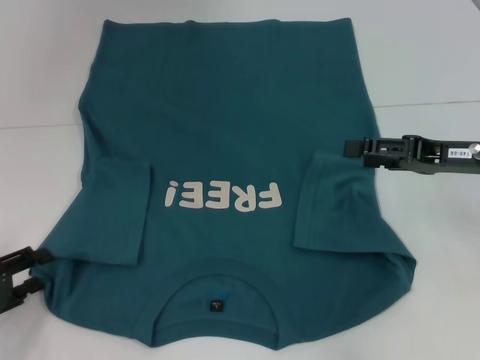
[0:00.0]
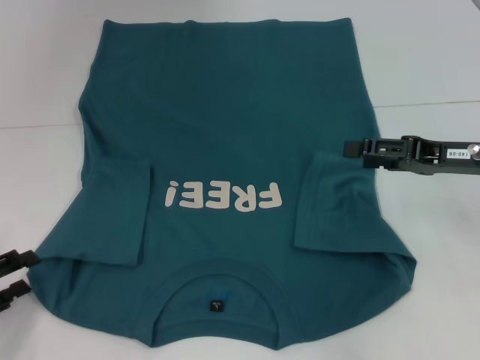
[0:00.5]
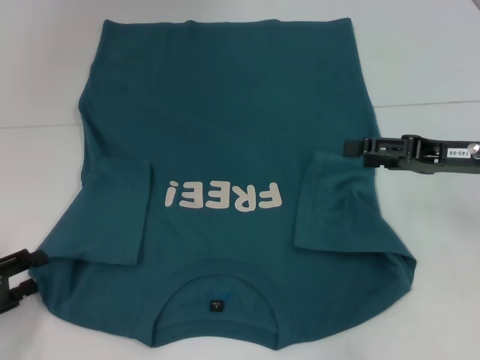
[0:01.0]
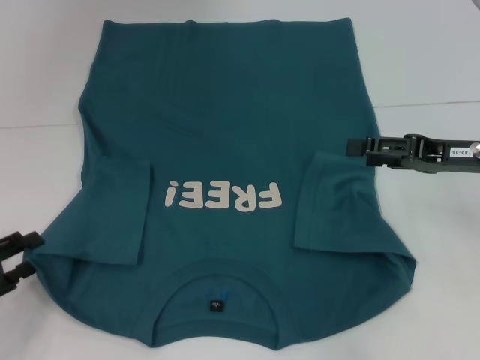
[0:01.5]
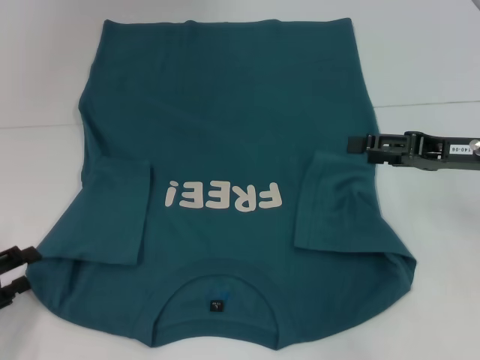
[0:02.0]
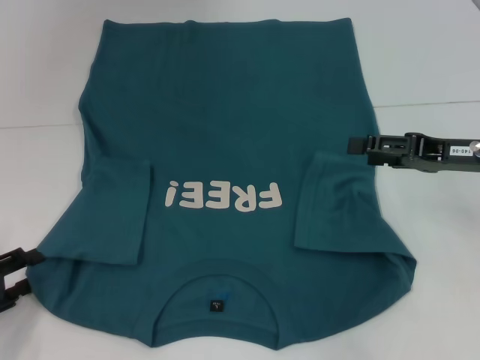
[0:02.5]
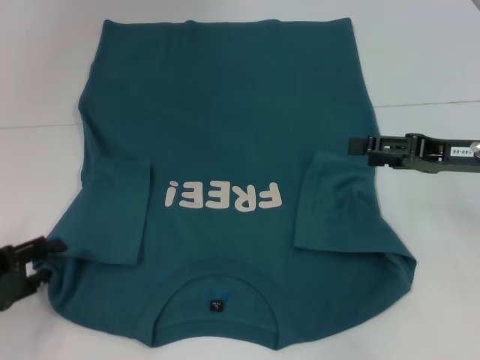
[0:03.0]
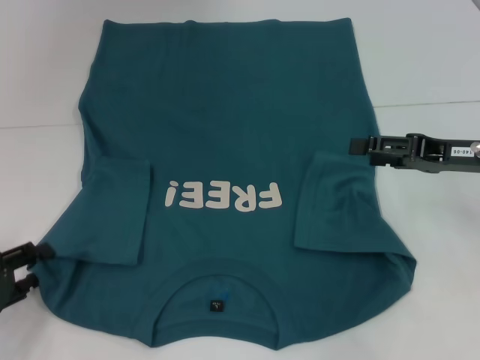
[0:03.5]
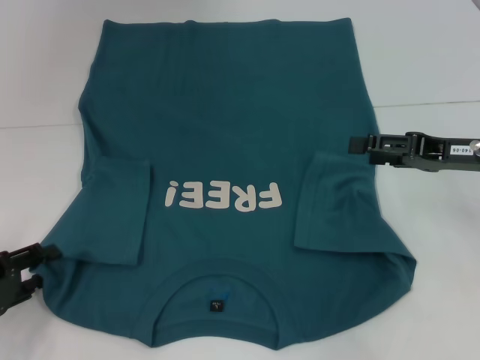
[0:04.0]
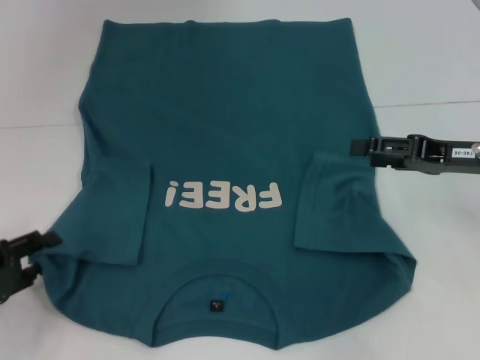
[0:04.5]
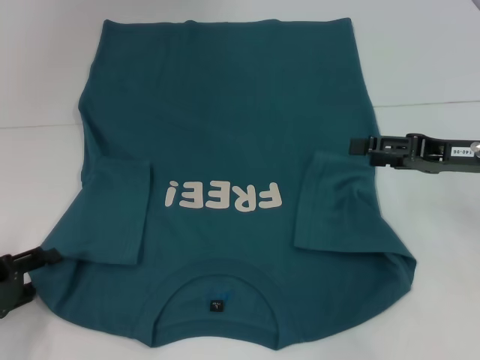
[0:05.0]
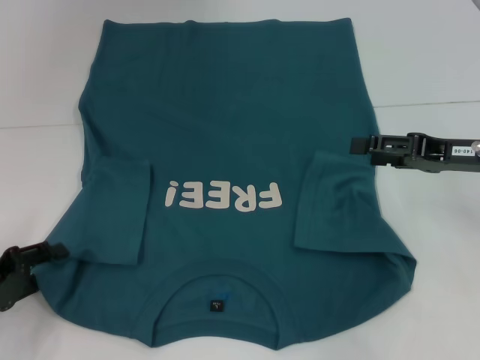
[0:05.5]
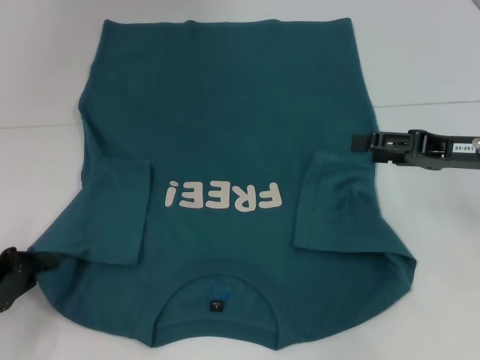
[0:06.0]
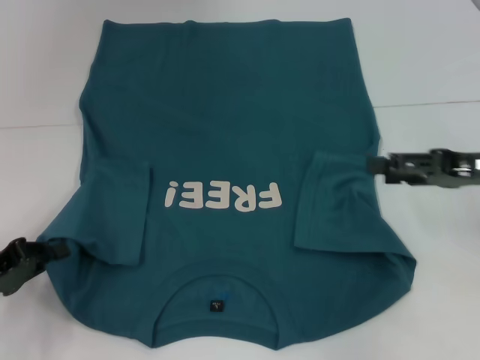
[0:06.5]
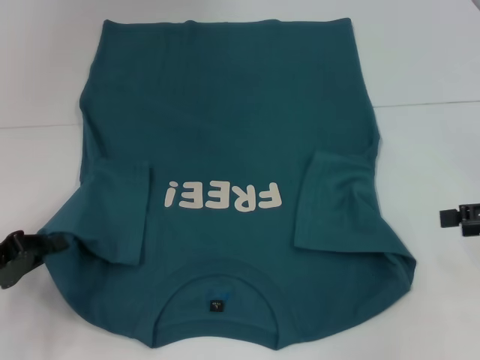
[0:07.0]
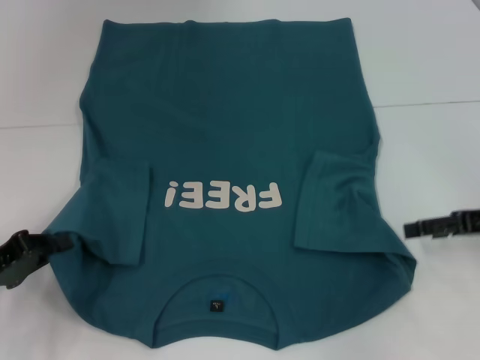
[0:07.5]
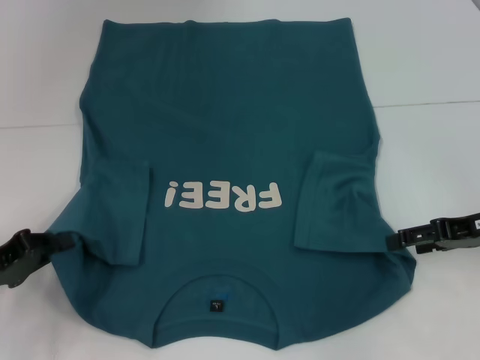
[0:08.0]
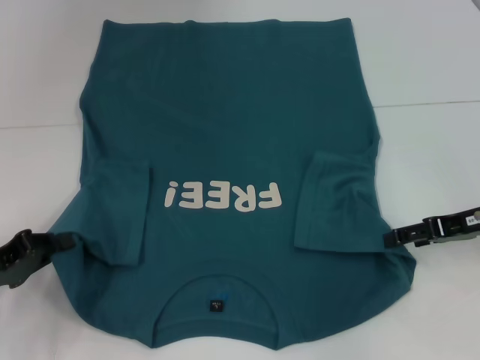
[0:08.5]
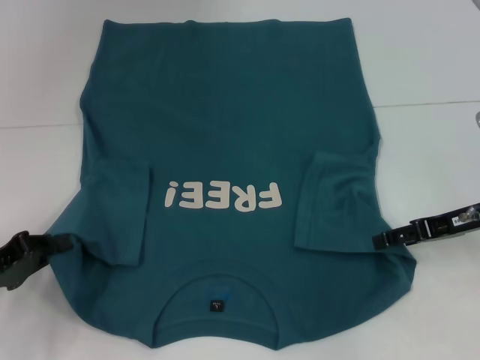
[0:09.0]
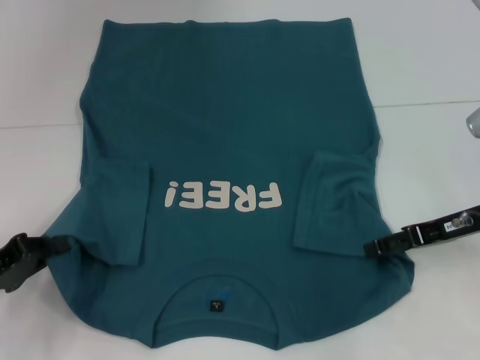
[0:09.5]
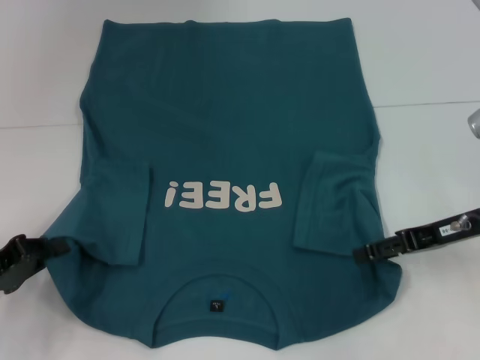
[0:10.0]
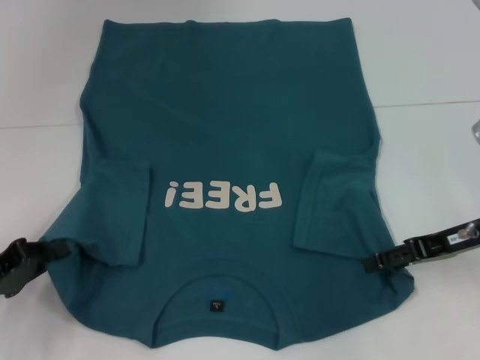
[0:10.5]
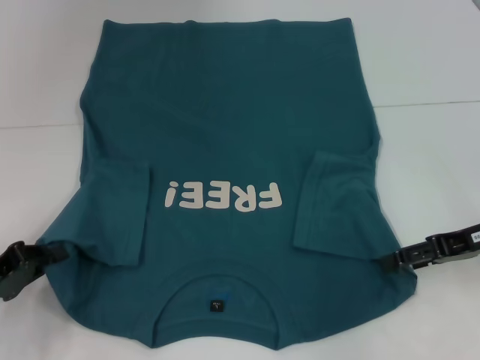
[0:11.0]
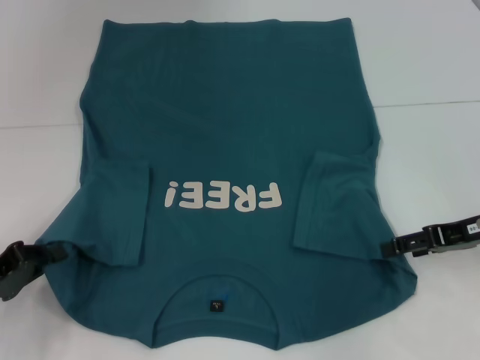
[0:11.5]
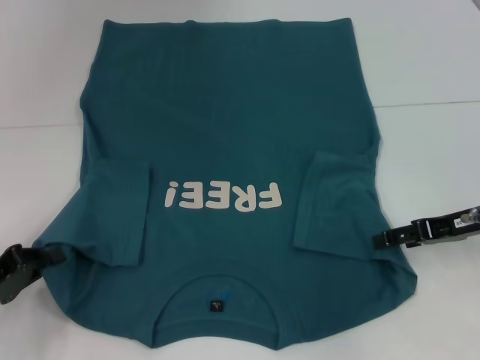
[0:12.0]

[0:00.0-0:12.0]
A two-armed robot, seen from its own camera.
Step, 0:00.0 to 0:06.5: Grab the bottom left corner with your left hand.
0:00.0 to 0:02.0: The two grippers keep their place.
0:02.0 to 0:04.0: The grippers move only a little.
0:04.0 to 0:06.0: The left gripper closes.
0:06.0 to 0:08.0: The right gripper reaches about 10 cm to the right, then returns.
0:08.0 to 0:12.0: The grippers move only a little.

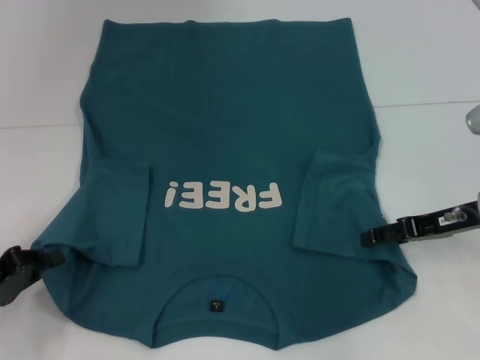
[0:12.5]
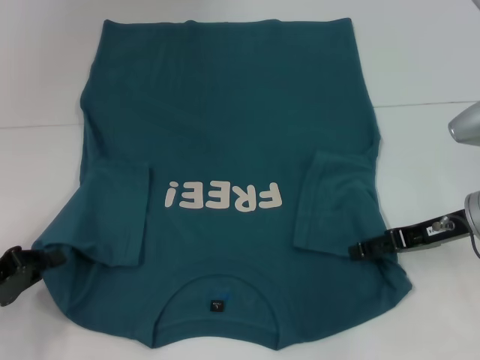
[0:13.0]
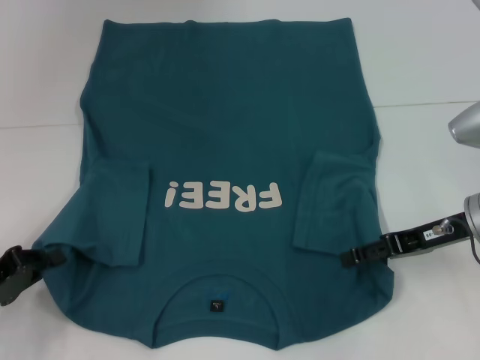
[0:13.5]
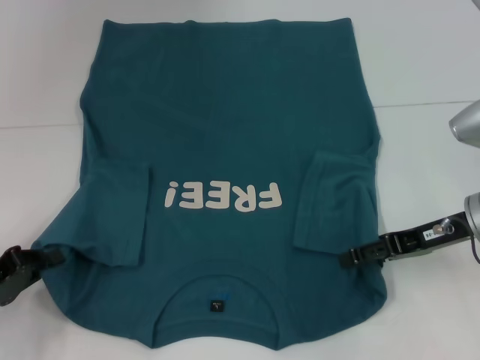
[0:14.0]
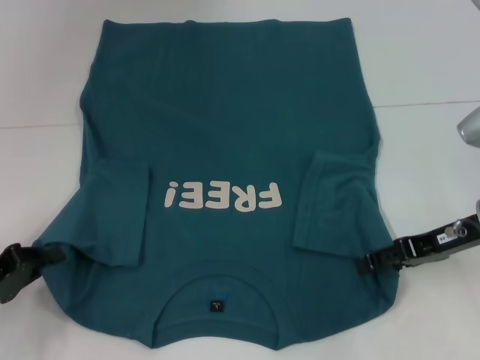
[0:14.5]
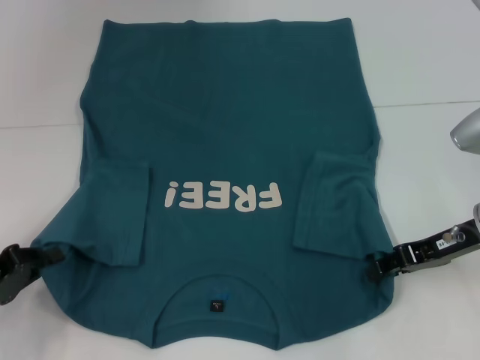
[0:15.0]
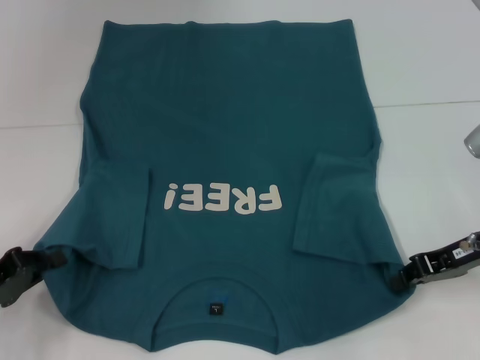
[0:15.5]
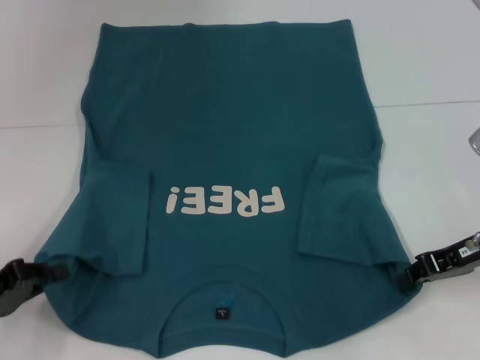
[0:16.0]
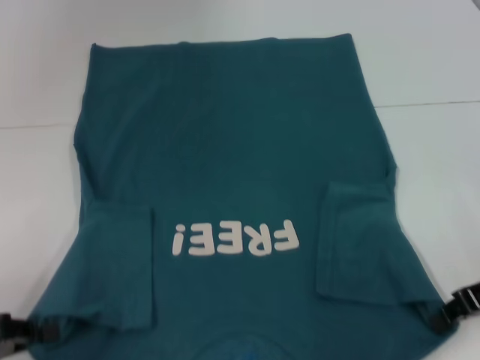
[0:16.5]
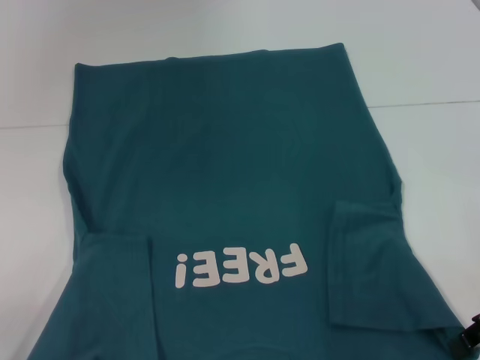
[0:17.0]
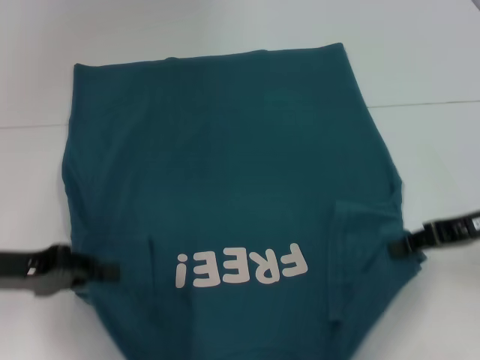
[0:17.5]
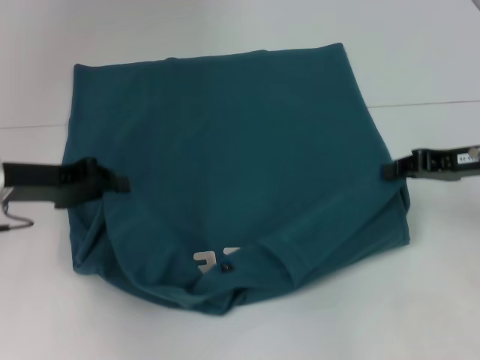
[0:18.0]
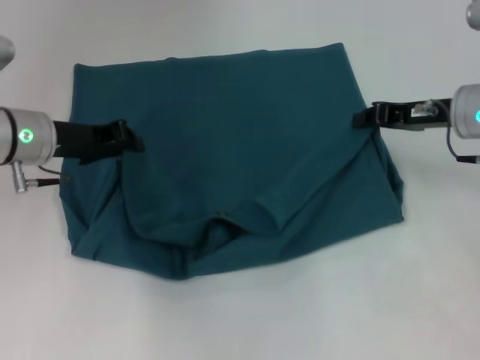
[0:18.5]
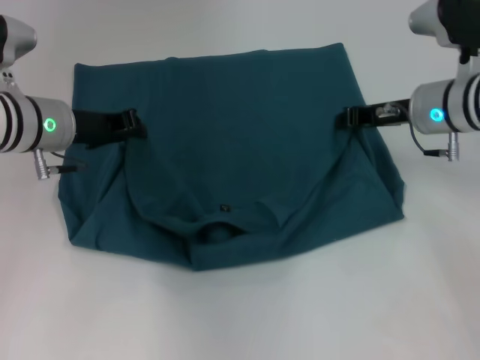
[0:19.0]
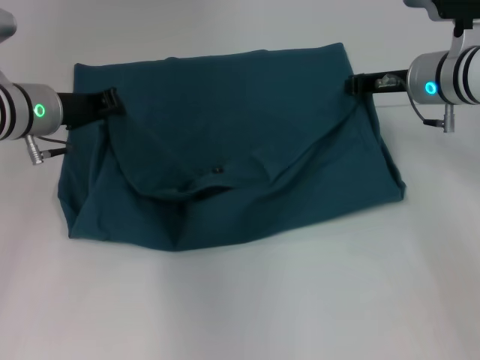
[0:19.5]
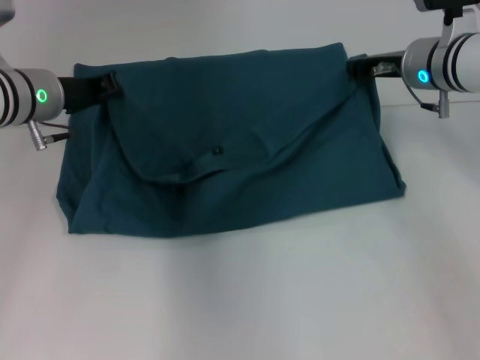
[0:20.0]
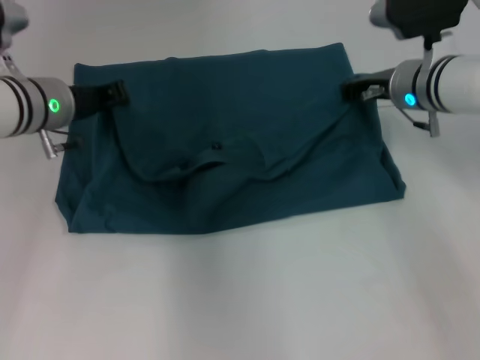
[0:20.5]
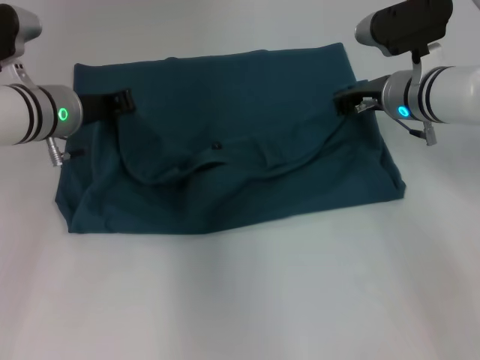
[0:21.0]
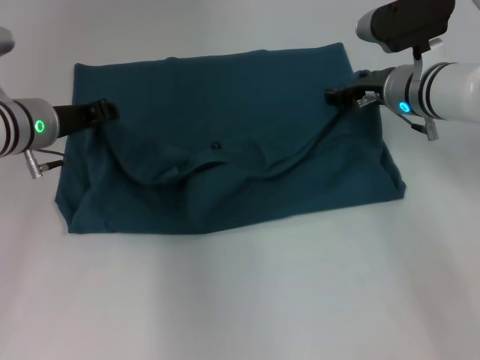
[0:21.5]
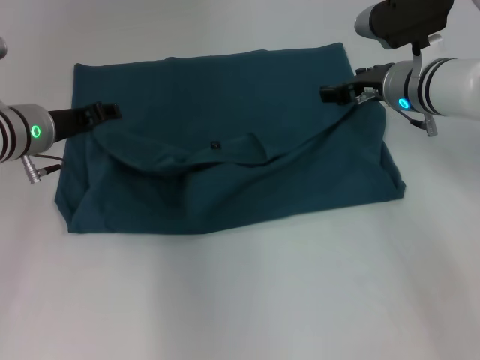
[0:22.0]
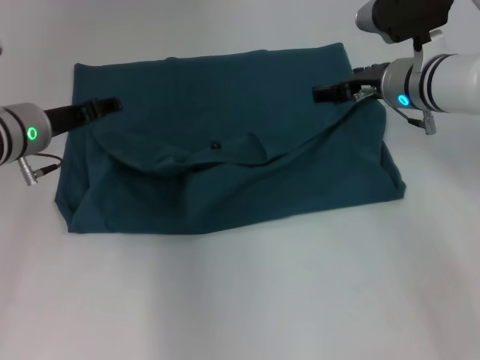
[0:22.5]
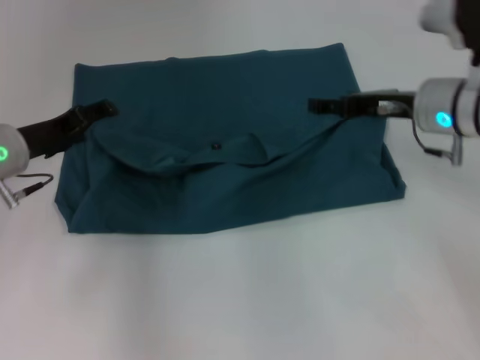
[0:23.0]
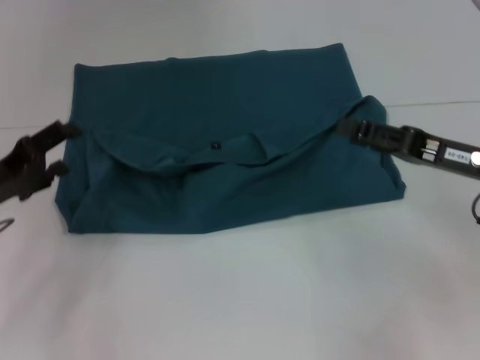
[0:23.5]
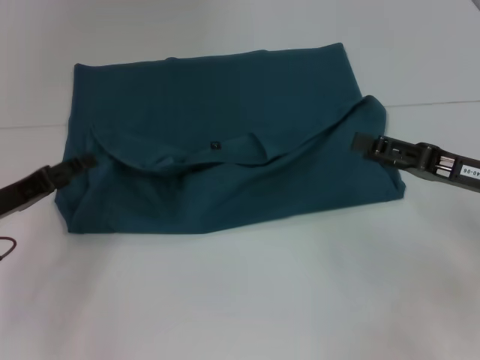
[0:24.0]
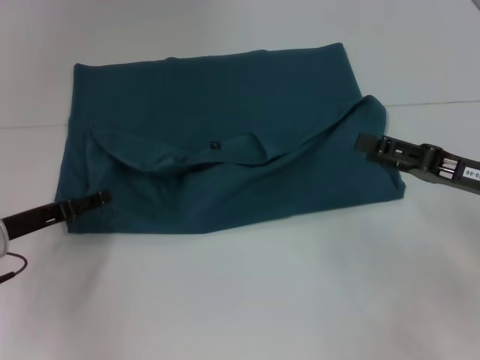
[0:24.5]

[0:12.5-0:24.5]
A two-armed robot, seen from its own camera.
Step, 0:12.5 to 0:16.0: Grab the bottom right corner with your right hand.
Step, 0:16.5 to 0:22.0: Fold the clothes to the left.
Step, 0:16.5 to 0:22.0: Fold the clothes to the right.
0:12.5 to 0:14.5: The grippers make only small movements.
0:14.5 to 0:16.5: The right gripper ends up some 5 cm from where it was, and closes its fingers.
0:16.5 to 0:18.5: The right gripper shifts roughly 10 cm forward; the left gripper moves forward and to the right, some 20 cm.
0:18.5 to 0:20.5: The right gripper travels forward and to the left by some 10 cm.
0:20.5 to 0:22.5: The left gripper opens up. Meanwhile the right gripper opens its fingers.
0:22.5 to 0:24.5: The left gripper shifts about 15 cm backward, downward and to the left, while the right gripper travels backward and to the right by roughly 20 cm.

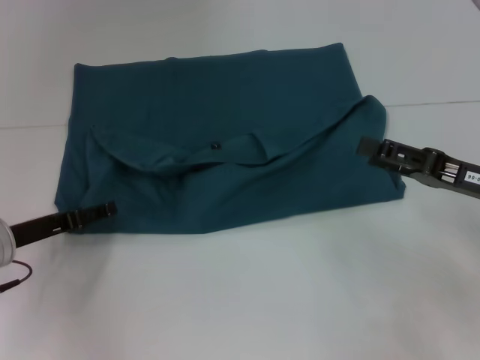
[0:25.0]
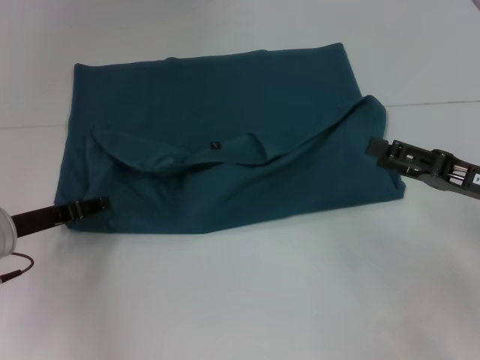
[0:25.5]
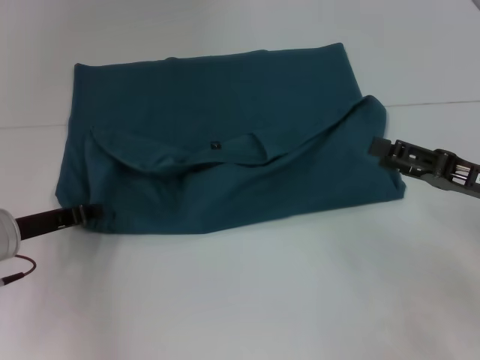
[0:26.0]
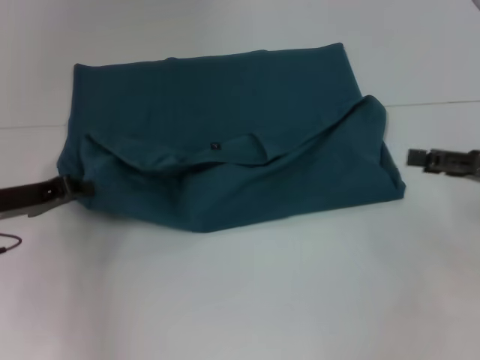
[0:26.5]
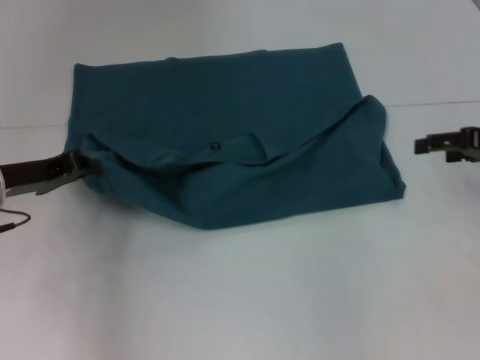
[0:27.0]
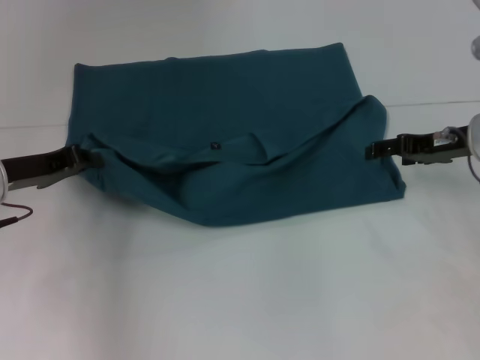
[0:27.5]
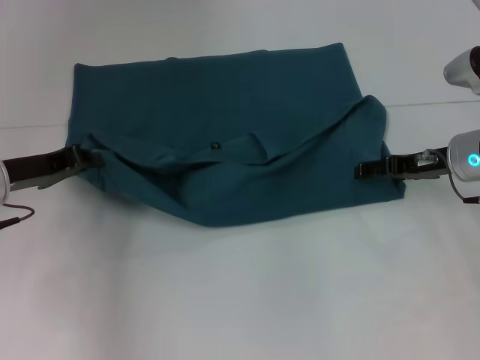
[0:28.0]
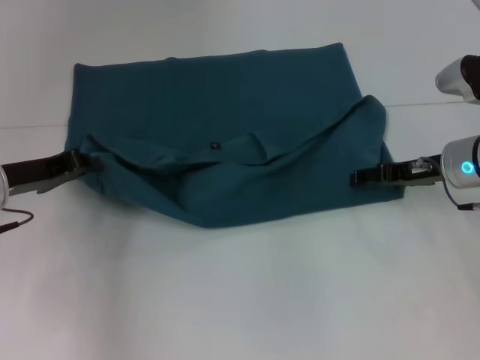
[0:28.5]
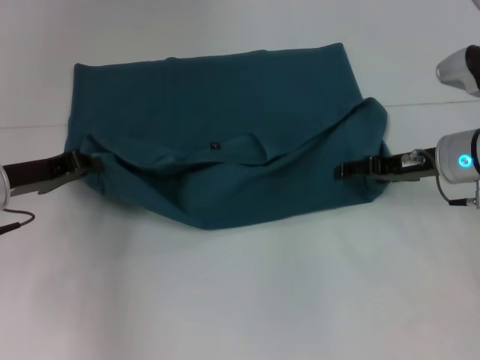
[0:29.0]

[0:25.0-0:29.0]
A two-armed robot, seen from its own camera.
0:25.0 to 0:27.0: The right gripper heads forward and to the right, covering roughly 10 cm; the left gripper travels upward by some 5 cm, and closes.
0:27.0 to 0:29.0: The right gripper travels to the left and downward by about 10 cm.
